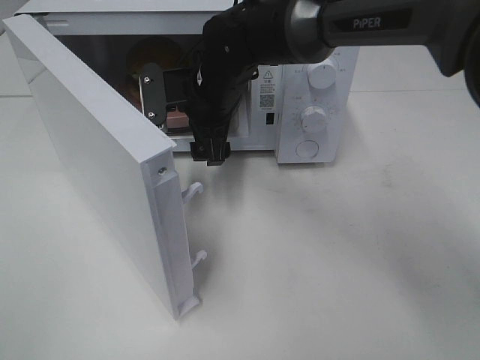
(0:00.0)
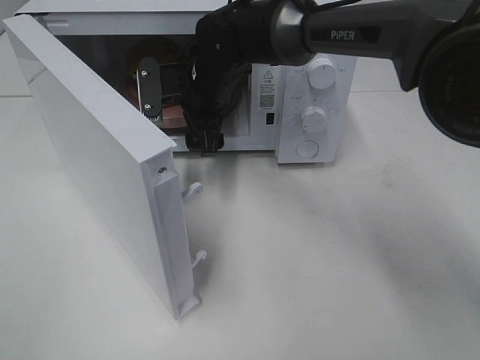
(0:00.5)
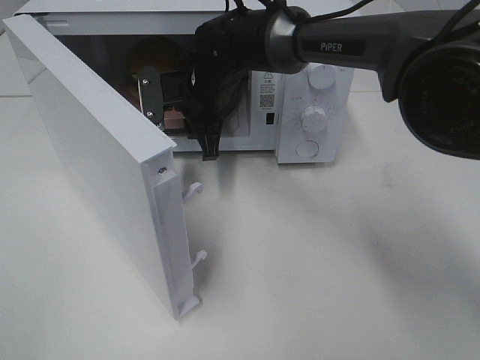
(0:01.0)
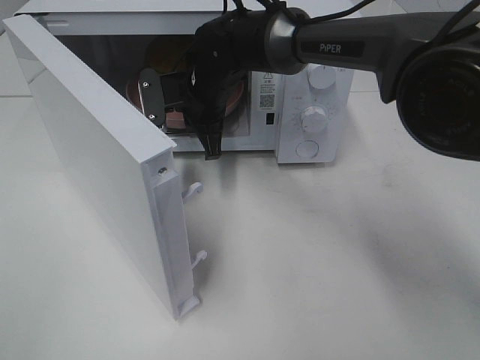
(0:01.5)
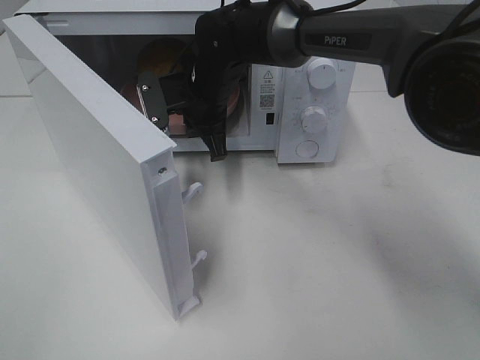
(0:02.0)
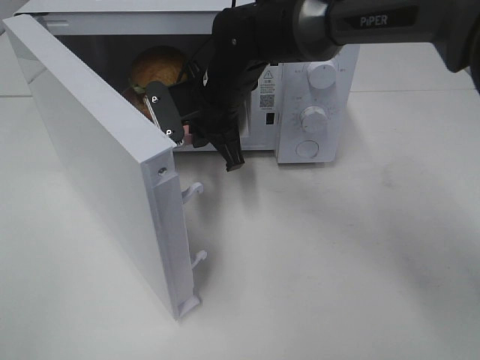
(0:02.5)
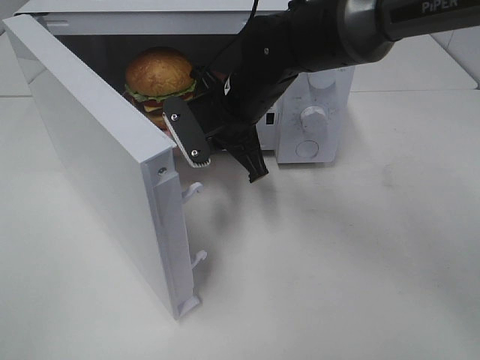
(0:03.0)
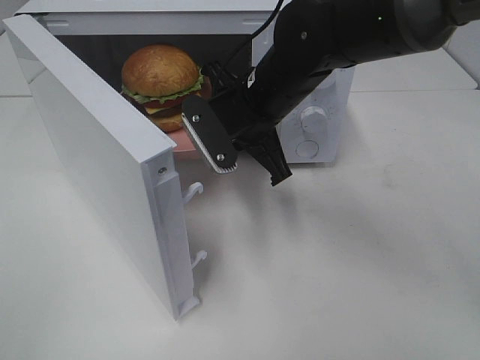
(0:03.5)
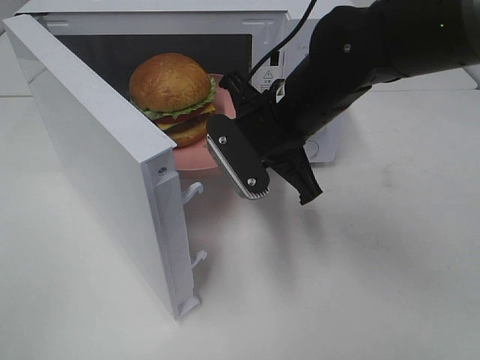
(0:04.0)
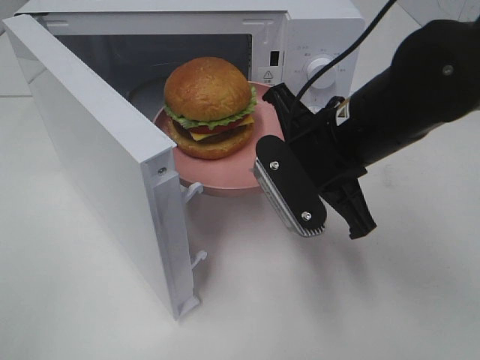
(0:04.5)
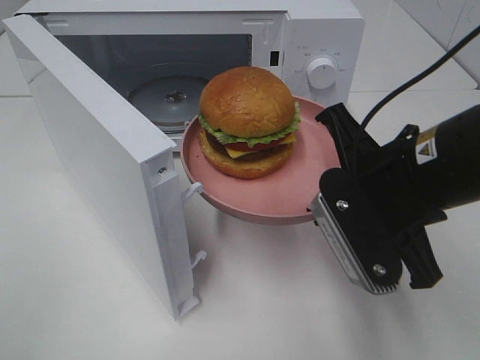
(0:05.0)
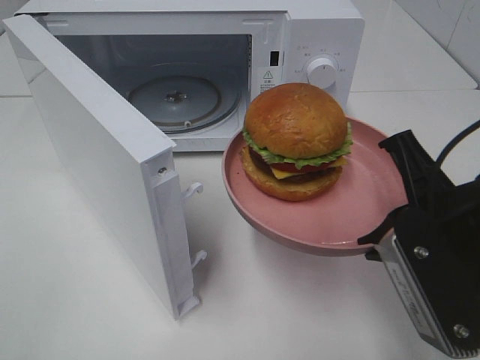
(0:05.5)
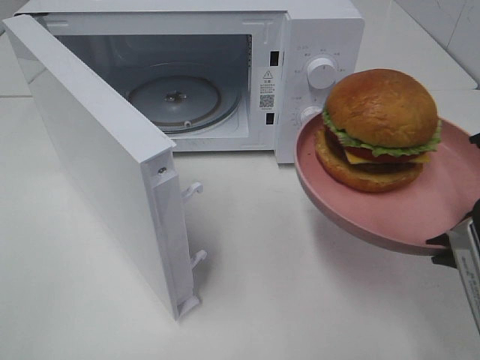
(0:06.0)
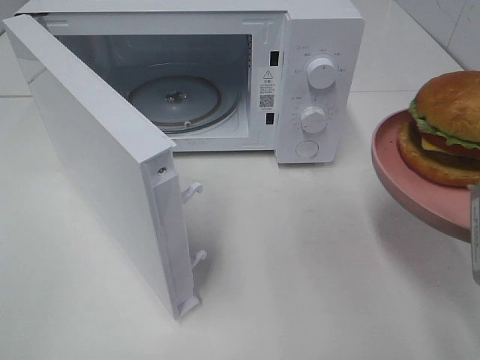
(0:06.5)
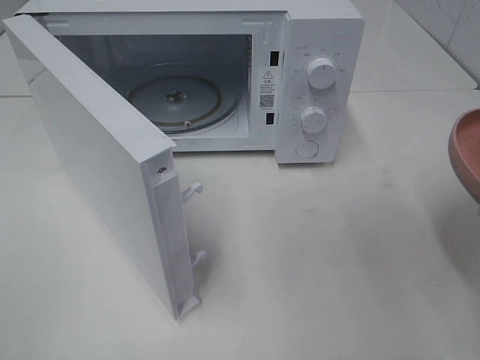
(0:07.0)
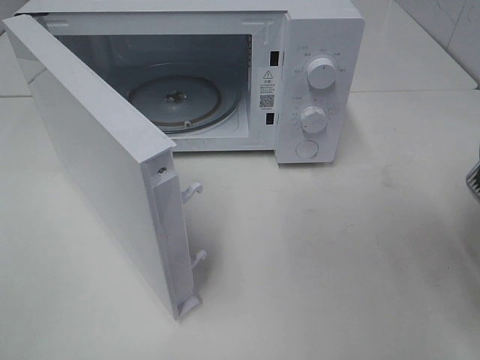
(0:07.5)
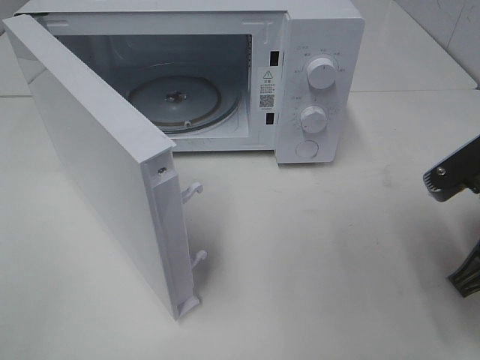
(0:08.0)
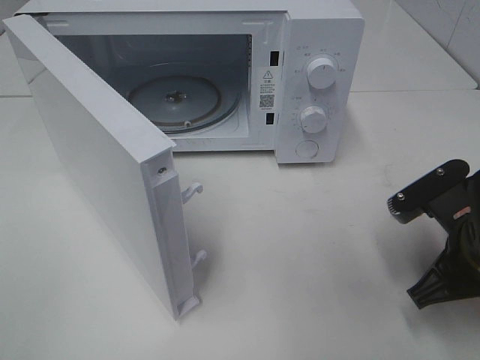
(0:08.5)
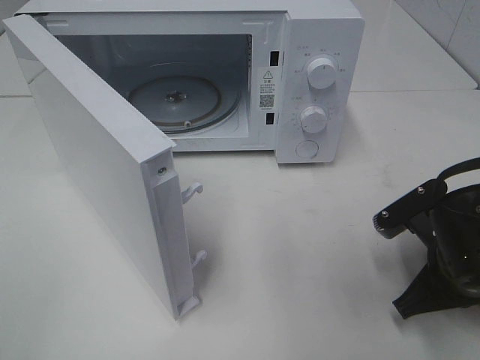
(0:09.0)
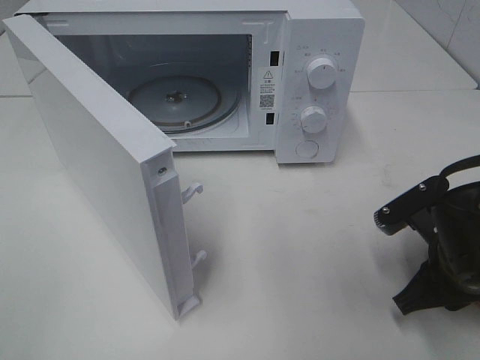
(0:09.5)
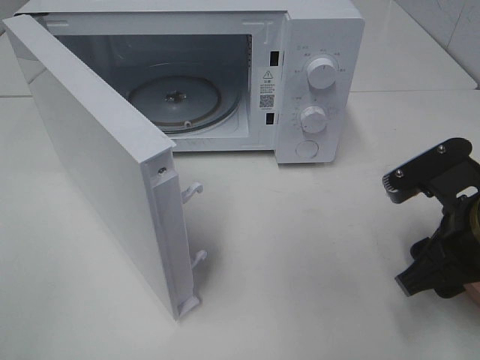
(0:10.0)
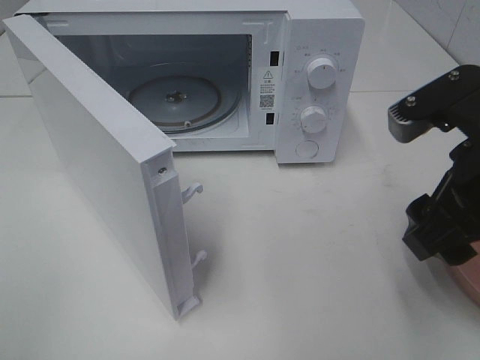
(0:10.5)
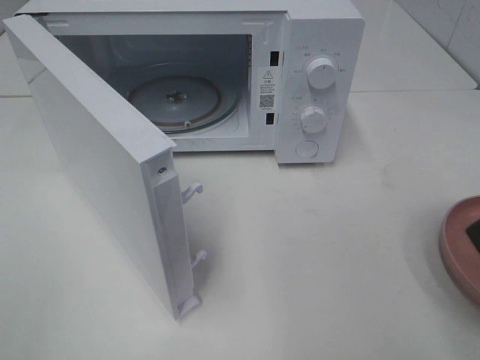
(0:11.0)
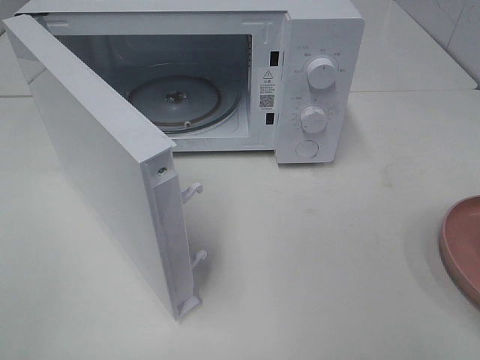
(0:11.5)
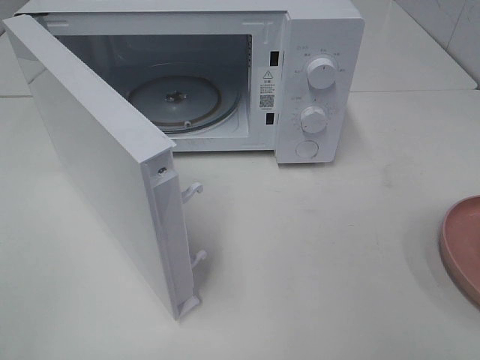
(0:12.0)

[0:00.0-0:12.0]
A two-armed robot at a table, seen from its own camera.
Task of the whole recording: Heat the burger.
Step, 0:01.5 to 0:09.5: Right hand: place the plate on the table.
0:00.0 to 0:02.0: The right gripper closes its fingers.
0:02.0 to 0:04.0: The right gripper heads backward and to the right, covering approximately 15 cm.
0:04.0 to 0:06.0: The right gripper travels backward and to the right by some 25 cm.
0:06.0 to 0:08.0: The right gripper moves downward, approximately 5 cm.
0:08.0 to 0:10.0: The right gripper travels downward and back again, some 10 cm each way, and opens its fingers.
0:10.0 to 0:12.0: The right gripper goes roughly 20 cm backward, upward and to the right.

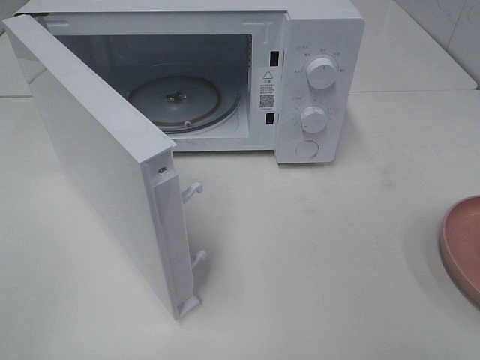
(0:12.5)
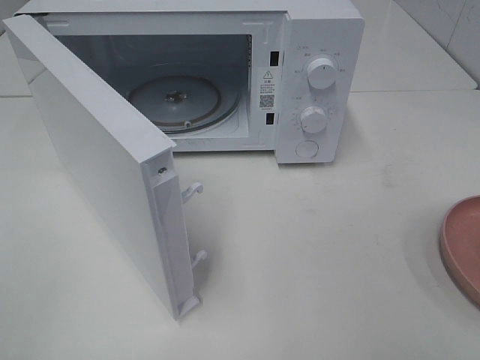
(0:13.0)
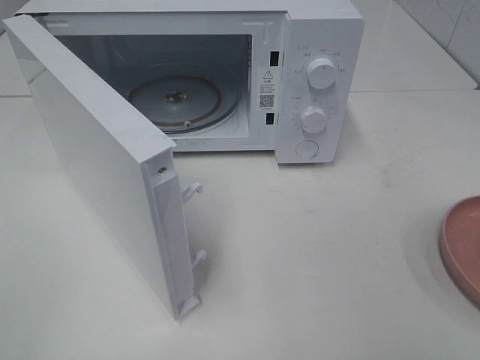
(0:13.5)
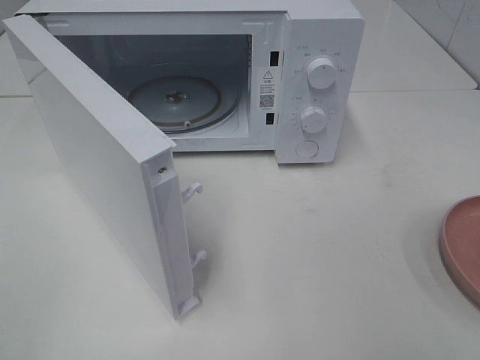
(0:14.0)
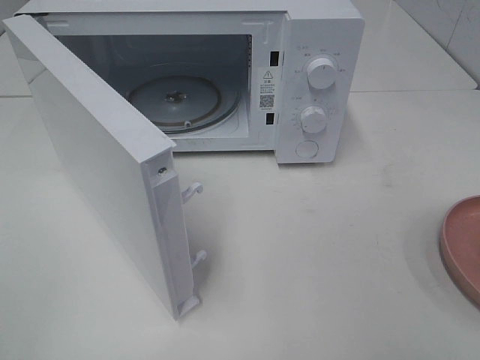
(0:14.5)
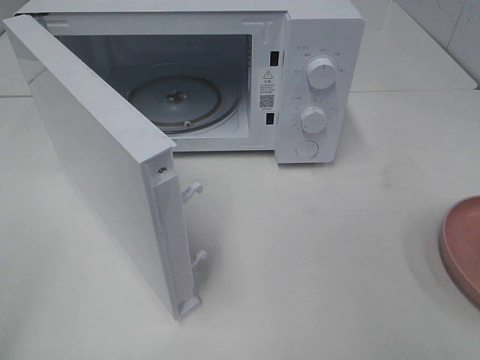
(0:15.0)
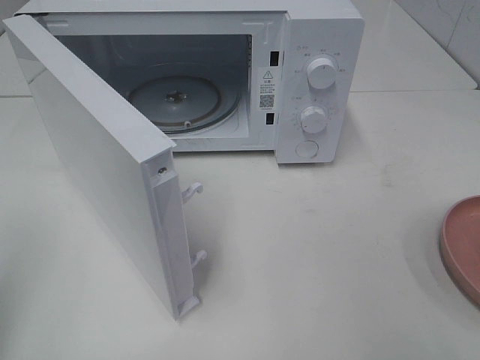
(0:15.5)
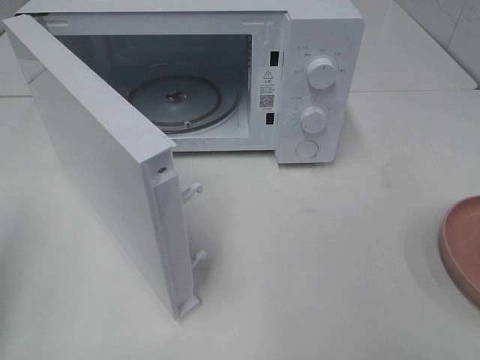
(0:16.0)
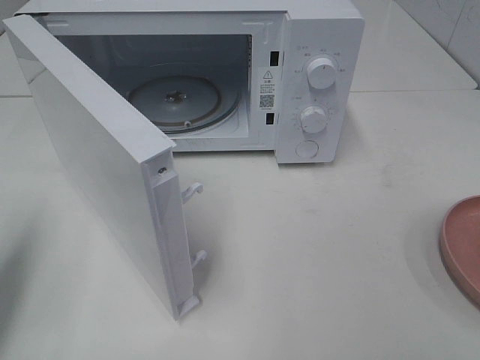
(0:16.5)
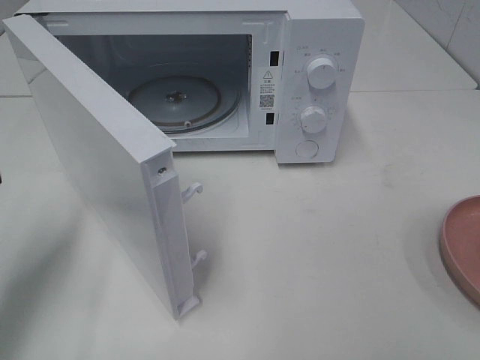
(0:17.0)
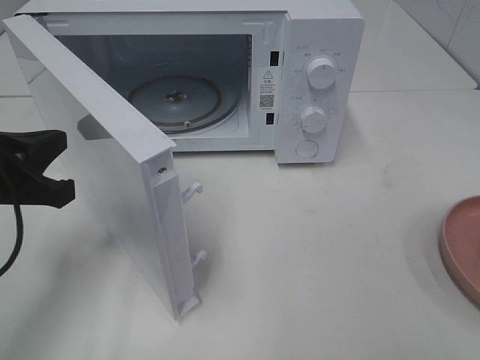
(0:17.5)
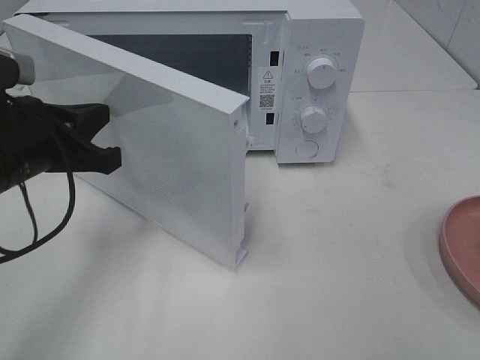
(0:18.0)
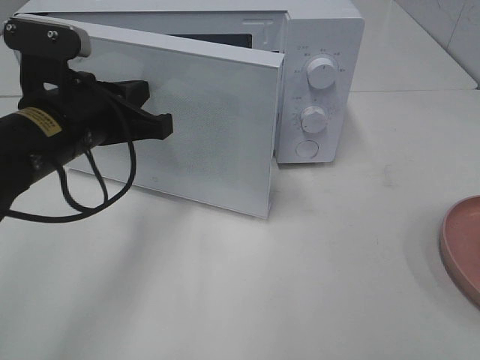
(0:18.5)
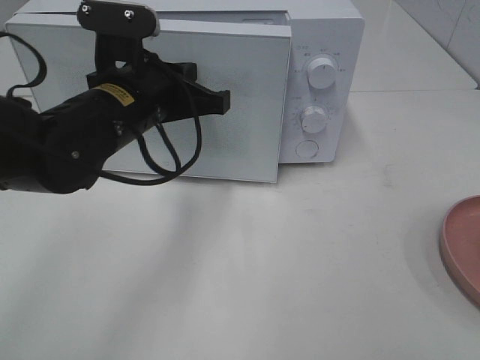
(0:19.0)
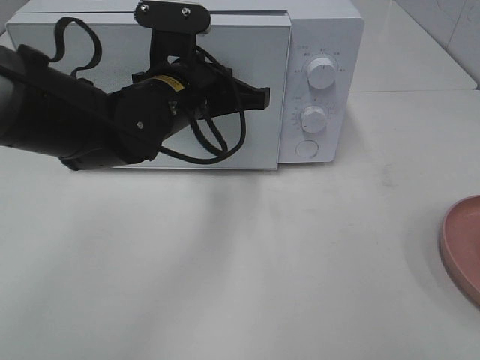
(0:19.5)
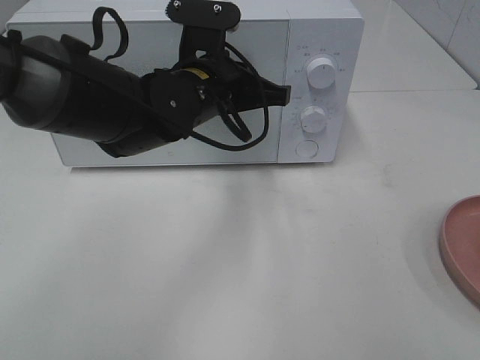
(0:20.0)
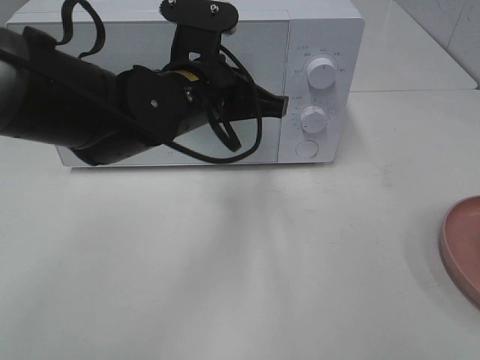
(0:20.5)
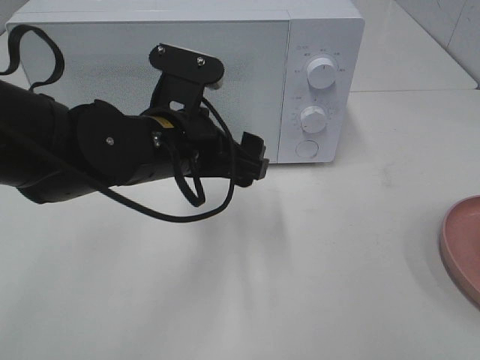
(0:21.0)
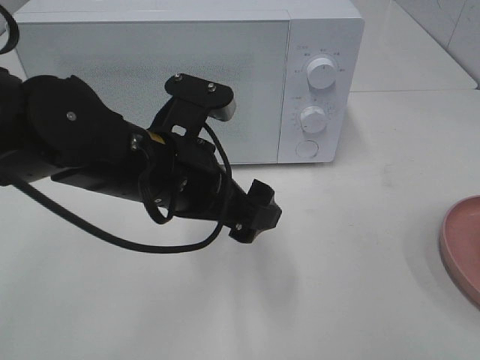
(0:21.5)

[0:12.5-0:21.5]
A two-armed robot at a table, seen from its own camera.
Task of the whole recording: Heat the burger.
Step, 0:12.5 to 0:20.5: Left hand: close the microwave door.
0:12.5 to 0:14.5: Both grippers stay about where they are.
0:14.5 to 0:17.0: The left gripper travels forward and downward by about 20 cm, and closes up.
0:17.0 to 0:19.5: The left gripper goes approximately 25 cm to the right and forward.
0:19.5 to 0:21.5: The left gripper goes approximately 10 cm backward, and opens up.

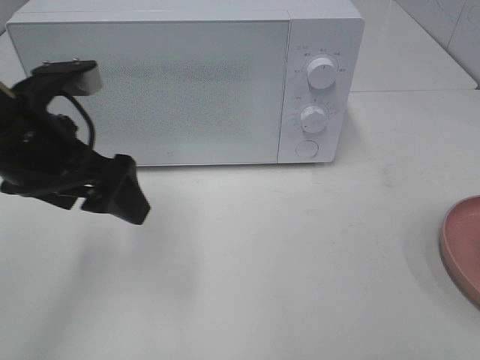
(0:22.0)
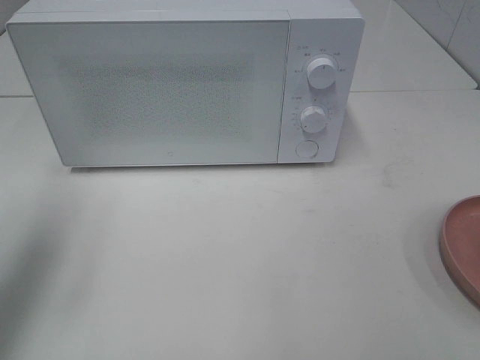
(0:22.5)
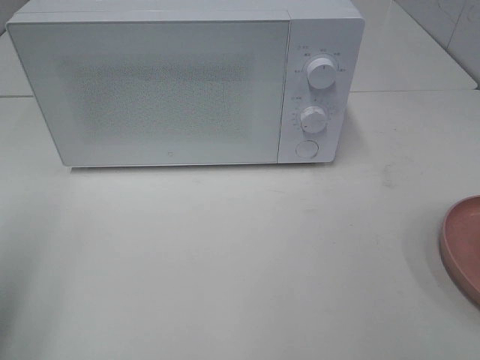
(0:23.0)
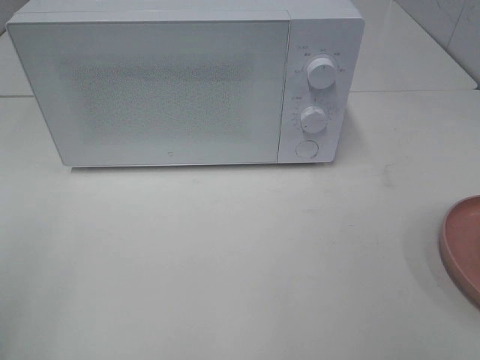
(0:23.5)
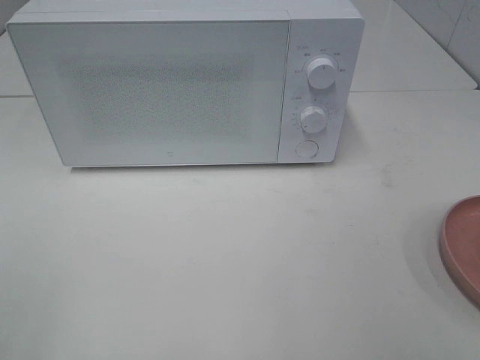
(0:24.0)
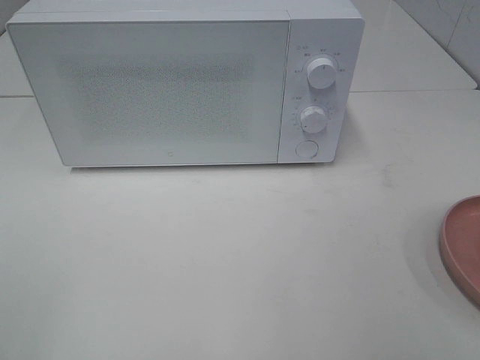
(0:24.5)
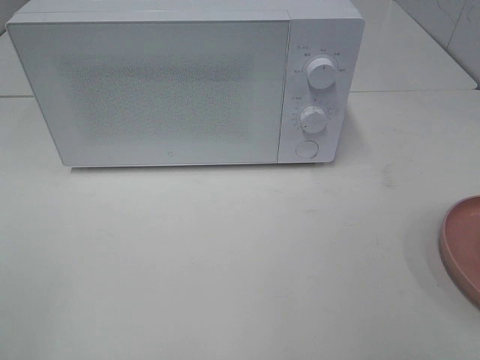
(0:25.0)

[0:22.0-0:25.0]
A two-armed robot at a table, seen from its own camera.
Task of the whole recording: Heat the burger.
0:22.0 to 0:23.5: The left gripper shifts approximately 25 cm backward and to the left.
